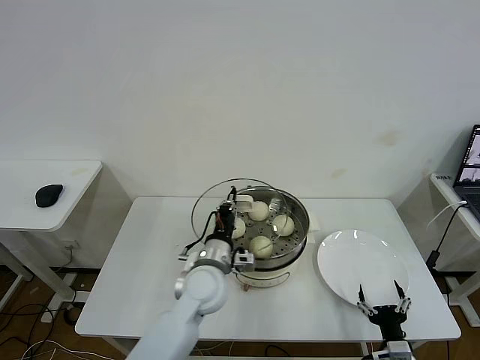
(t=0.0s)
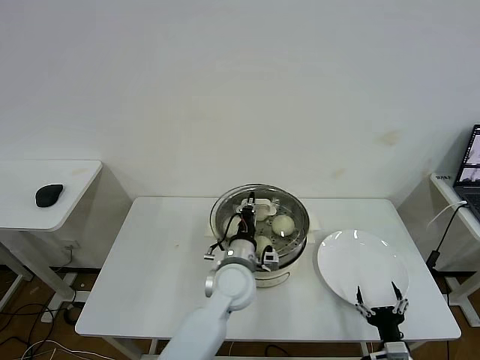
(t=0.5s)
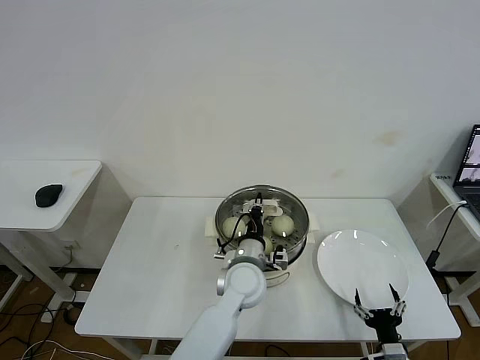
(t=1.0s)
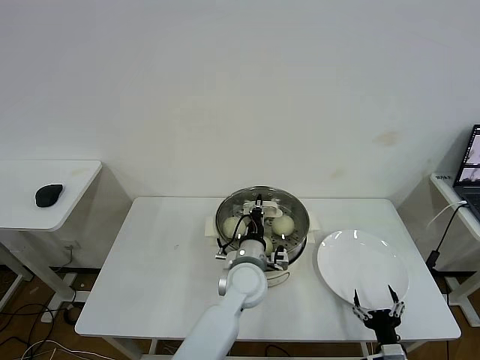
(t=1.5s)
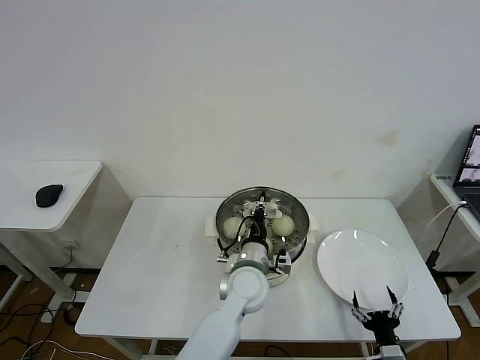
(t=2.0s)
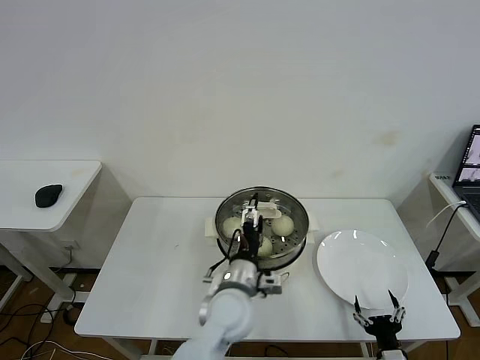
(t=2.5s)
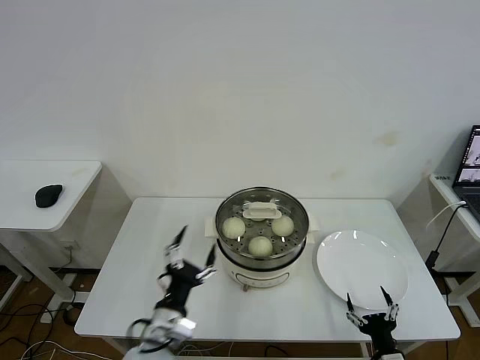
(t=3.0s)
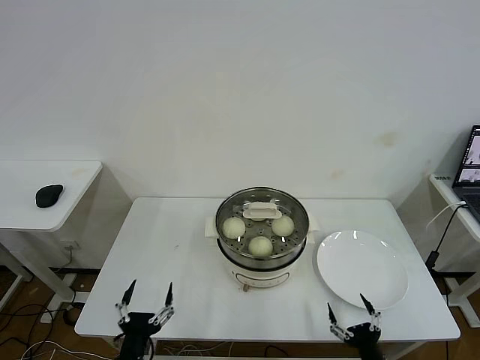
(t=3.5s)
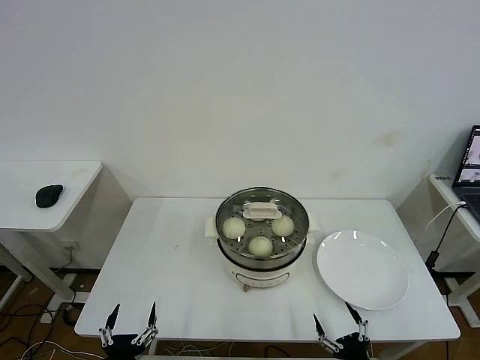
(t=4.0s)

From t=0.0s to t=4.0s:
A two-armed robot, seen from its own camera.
Task of the whole recording: take steamed baozi put them in steamer then cover it.
Step, from t=0.0s to t=2.5s: Place the pot lid on the steamer with left gripper.
From t=0.0s to t=2.0s: The left gripper heads to the right, covering about 10 cm.
From t=2.0s to t=4.0s: The left gripper goes roughly 40 cm to the left and backward, and opens. Meanwhile the right gripper goes about 5 cm backward.

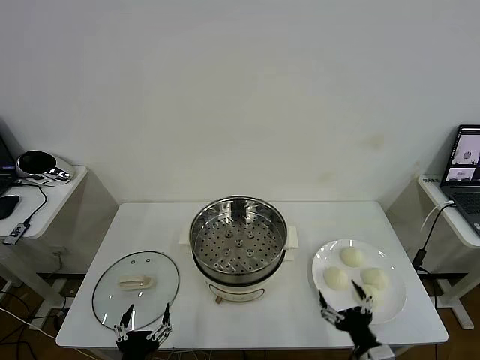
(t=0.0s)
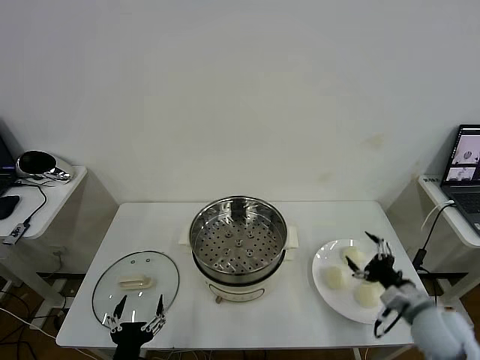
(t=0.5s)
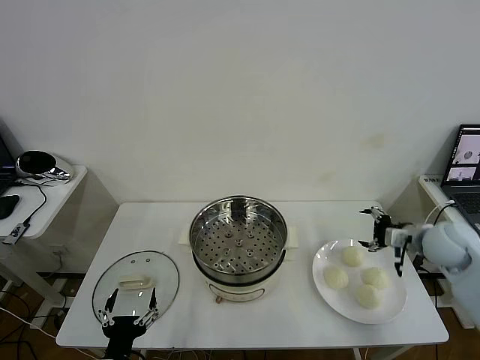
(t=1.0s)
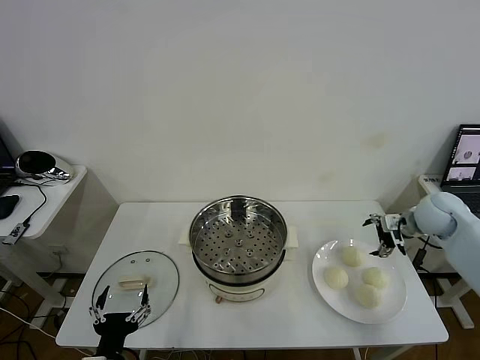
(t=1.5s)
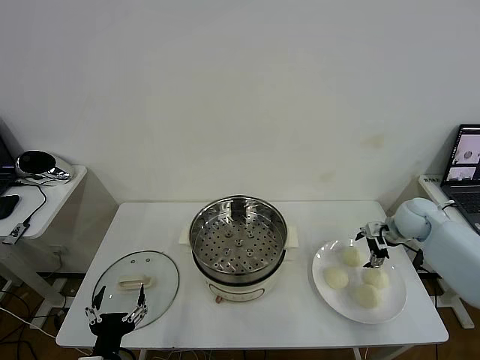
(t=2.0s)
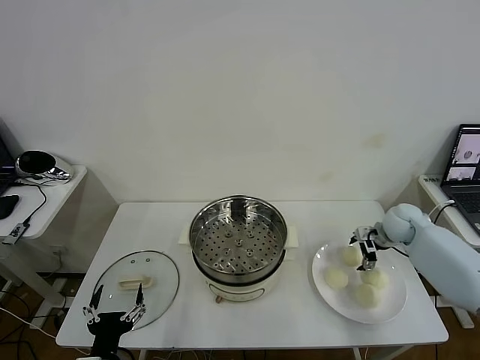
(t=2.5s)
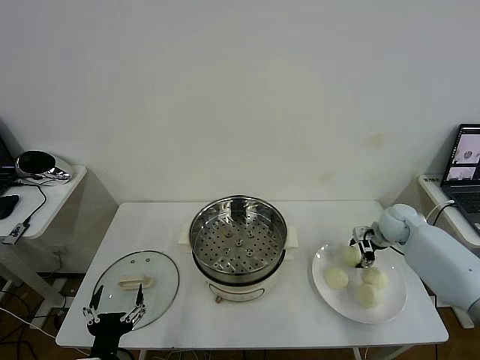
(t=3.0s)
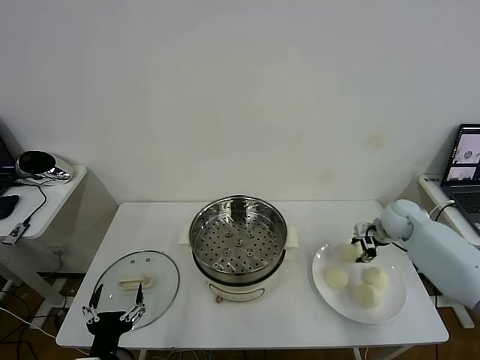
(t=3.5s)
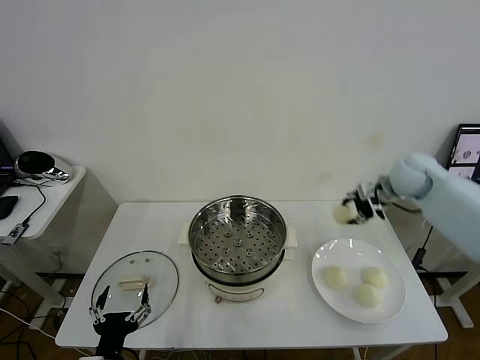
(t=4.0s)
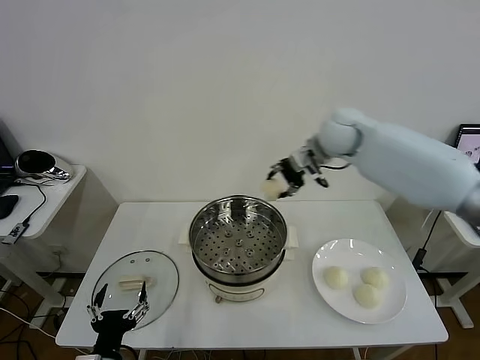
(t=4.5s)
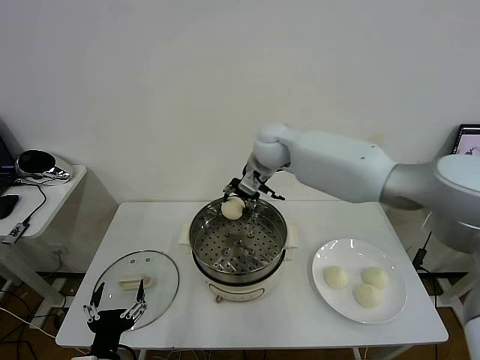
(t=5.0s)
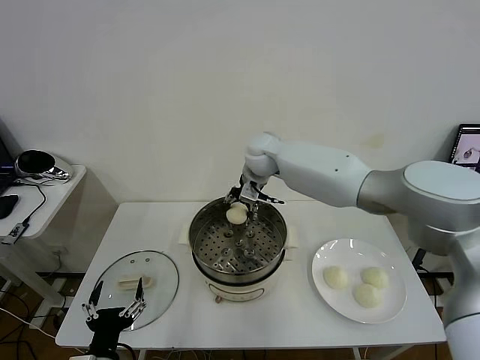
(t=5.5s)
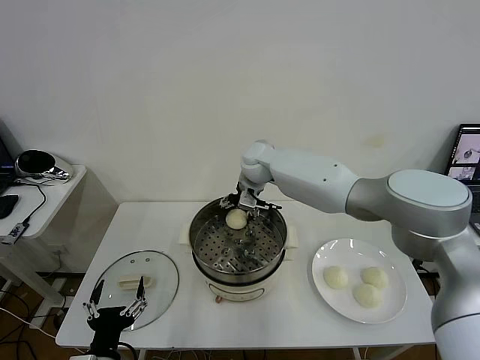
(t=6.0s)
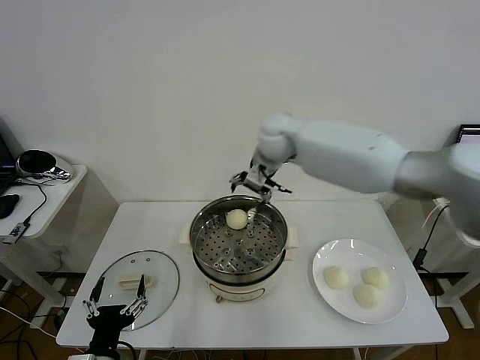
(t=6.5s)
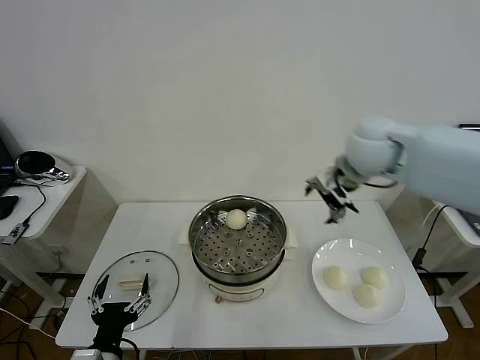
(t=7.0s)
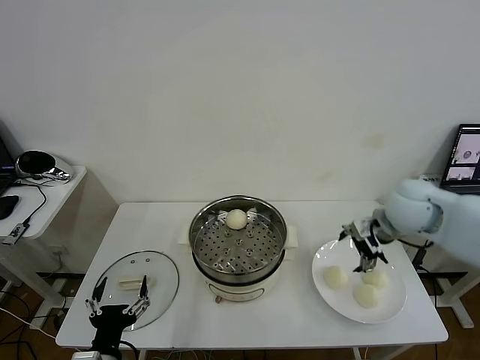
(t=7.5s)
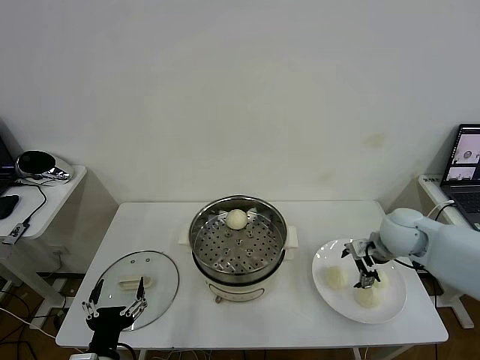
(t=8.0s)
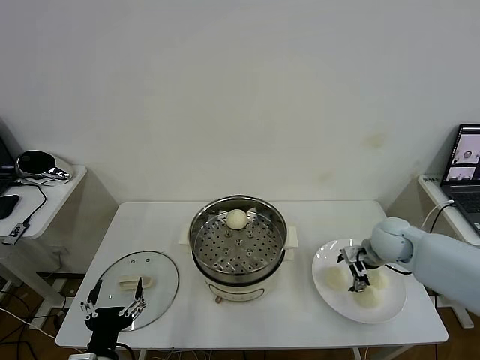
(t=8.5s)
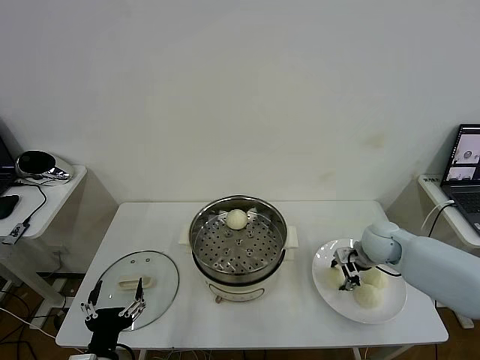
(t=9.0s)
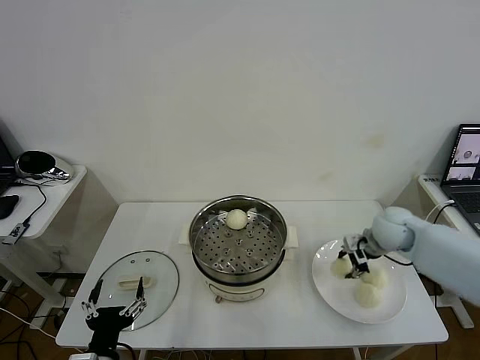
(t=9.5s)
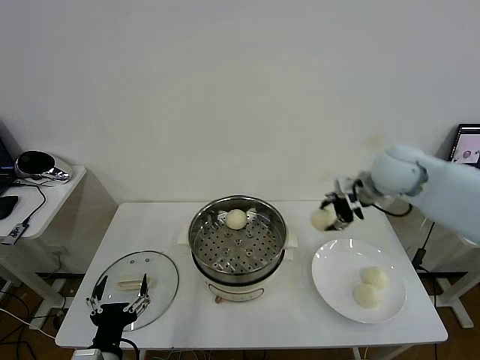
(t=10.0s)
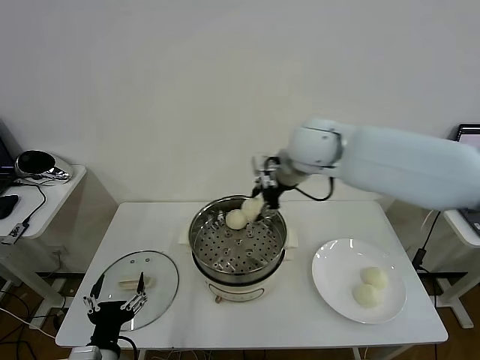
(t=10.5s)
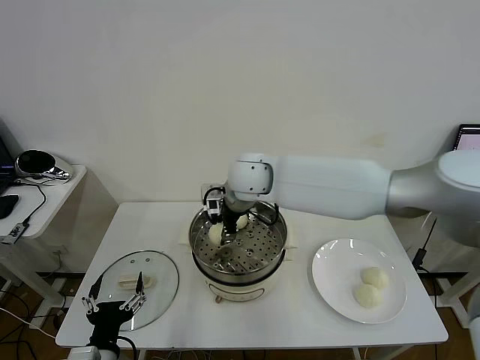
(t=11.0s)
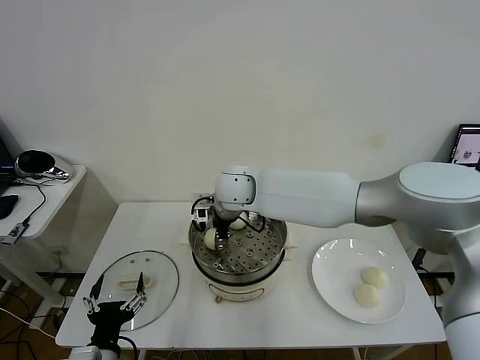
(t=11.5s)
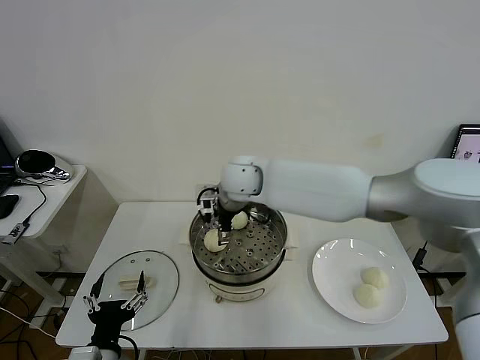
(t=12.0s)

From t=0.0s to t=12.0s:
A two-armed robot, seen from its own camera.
Task of the whole recording: take steamed baozi put them in steamer then cover it.
Step, from t=0.0s to t=3.0s: Grasp the baozi in the plate with right gripper.
Step, from t=3.5s to t=6.0s: Place the baozi on the steamer with right gripper.
Step, from t=6.5s to t=9.0s: Grasp the baozi in the plate with right gripper.
Step, from t=9.5s to t=11.5s: Place the baozi on the steamer with right gripper.
From t=2.0s to t=4.0s: The right gripper shifts roughly 20 cm upward and to the left, and closes.
From t=4.0s to t=6.0s: The right gripper travels to the left by some 30 cm, and opens.
From t=6.0s to t=8.0s: The right gripper moves to the right and backward, roughly 35 cm.
From t=8.0s to t=10.0s: The right gripper goes approximately 20 cm upward and to the left, and closes its fingers.
From t=10.0s to t=12.0s: The right gripper is displaced to the left by approximately 25 cm, and opens its fingers.

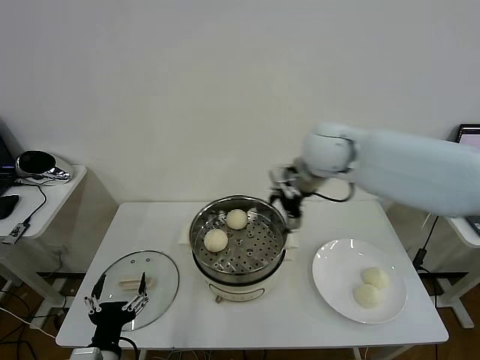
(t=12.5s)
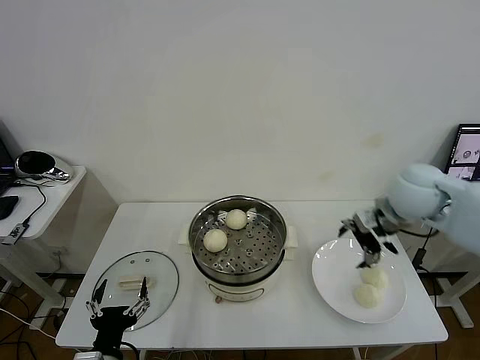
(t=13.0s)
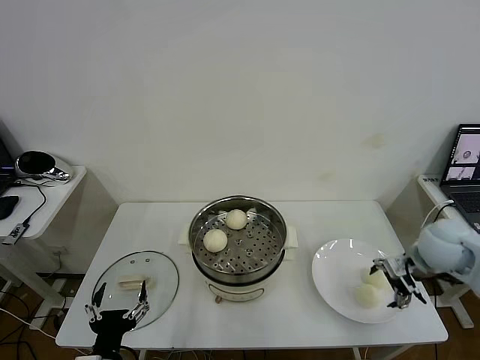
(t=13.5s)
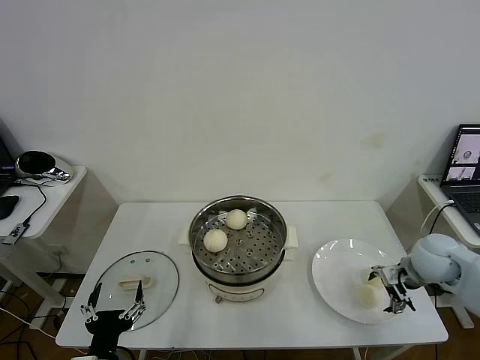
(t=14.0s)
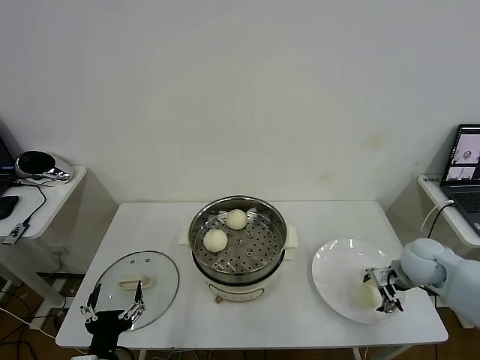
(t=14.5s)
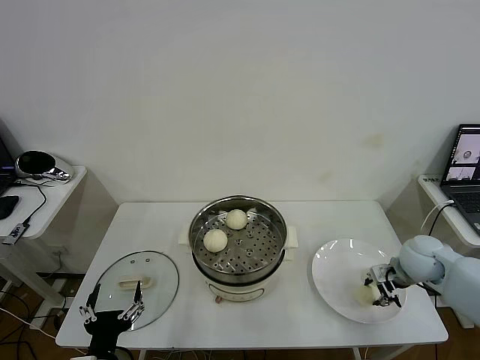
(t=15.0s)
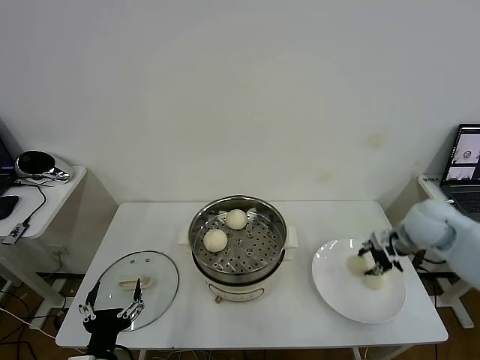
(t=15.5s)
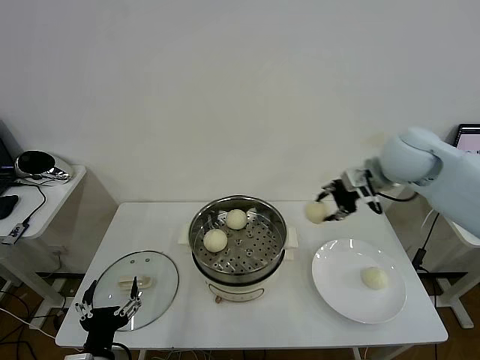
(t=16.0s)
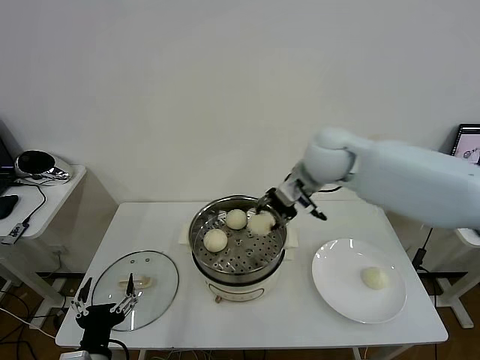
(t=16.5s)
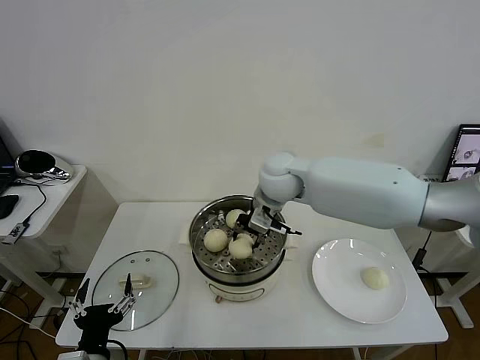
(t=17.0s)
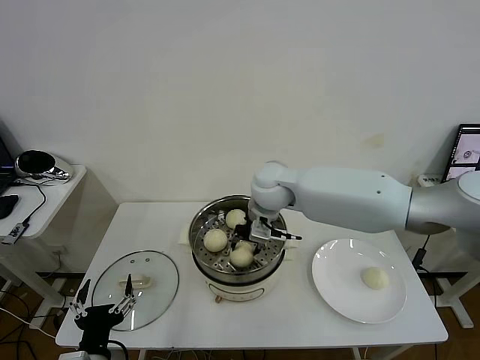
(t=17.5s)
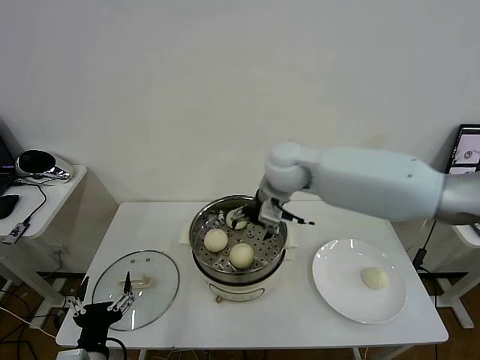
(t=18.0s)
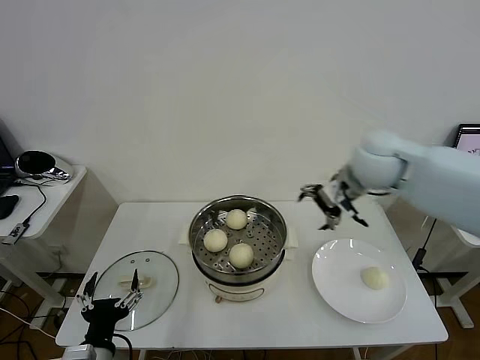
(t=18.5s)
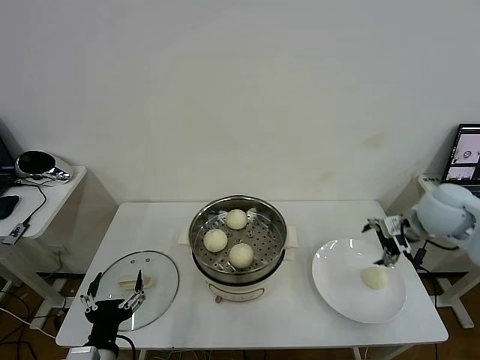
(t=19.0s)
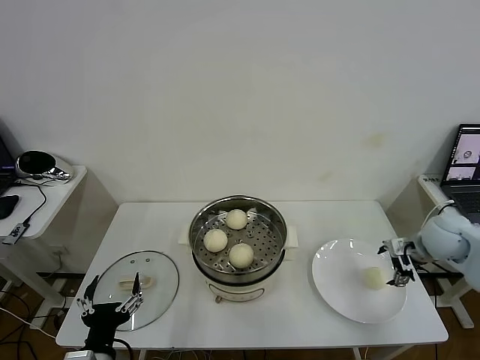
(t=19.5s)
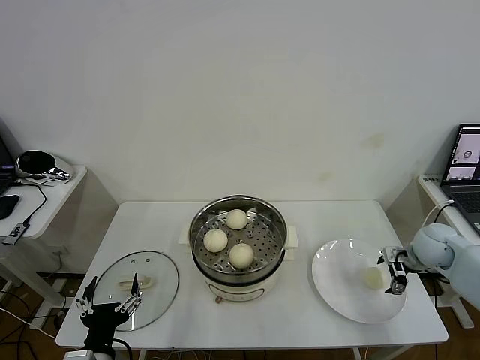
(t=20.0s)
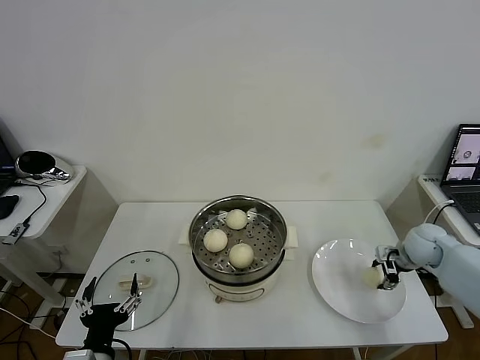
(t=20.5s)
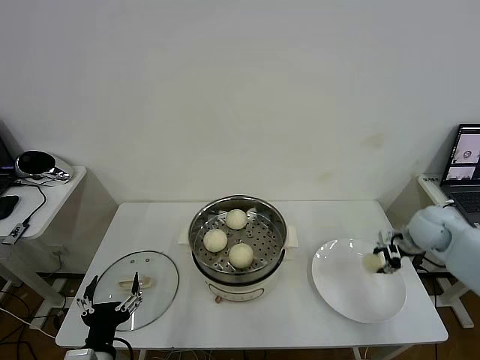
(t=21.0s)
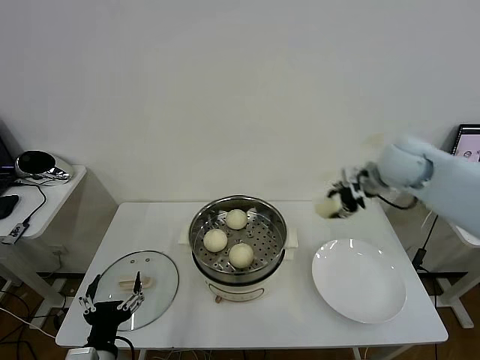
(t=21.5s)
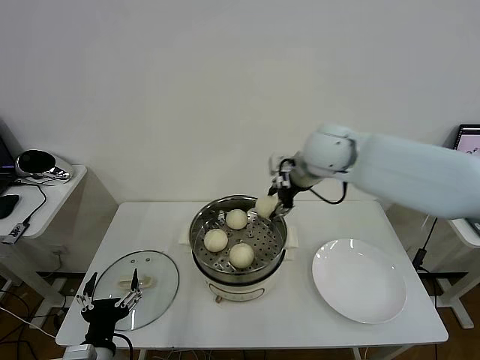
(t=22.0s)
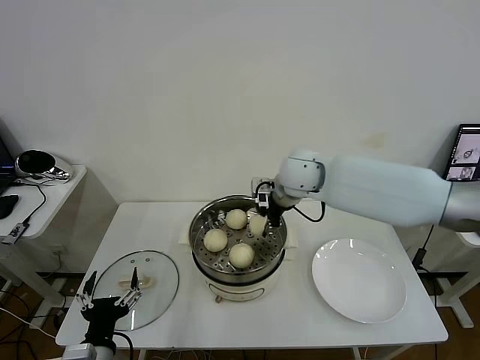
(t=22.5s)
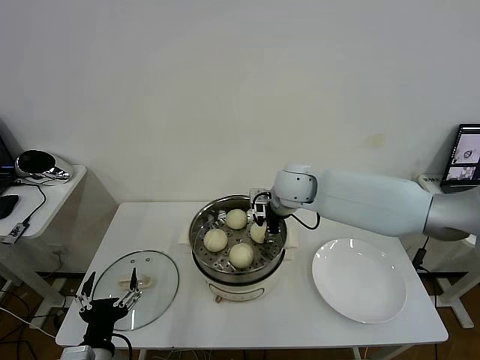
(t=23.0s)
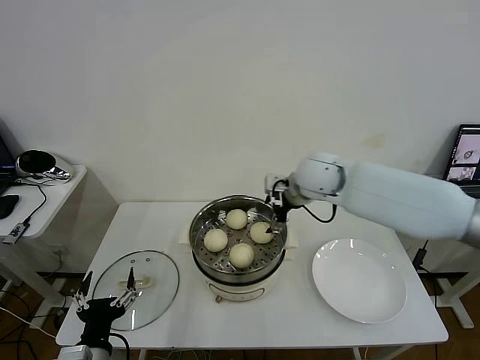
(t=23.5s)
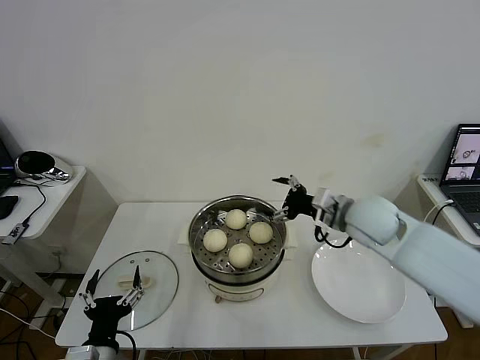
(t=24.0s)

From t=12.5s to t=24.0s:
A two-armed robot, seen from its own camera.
Task of the whole recording: take steamed baozi put them in steamer then cover it.
Step, from t=12.5s to t=14.5s: Grasp the baozi in the plate with right gripper.
Step, from t=15.0s to t=17.5s: Place the baozi on the steamer with right gripper.
Step, from t=18.0s to t=20.5s: Grasp the baozi in the plate with right gripper.
Step, from t=21.0s to t=23.0s: Place the baozi on the steamer with right gripper.
From t=12.5s to t=14.5s: The right gripper heads downward and to the right, covering roughly 30 cm.
From t=14.5s to t=16.5s: The right gripper is displaced to the left and upward by about 35 cm, and closes.
From t=16.5s to t=18.5s: The right gripper travels to the right by about 15 cm, and opens up.
From t=18.5s to t=20.0s: The right gripper is displaced downward and to the right by roughly 30 cm.
From t=20.0s to t=22.0s: The right gripper shifts some 35 cm to the left and upward, and closes its fingers.
From t=22.0s to t=24.0s: The right gripper moves downward, to the right and backward, some 15 cm, and opens.
